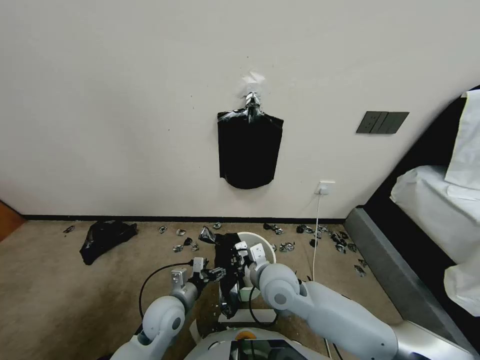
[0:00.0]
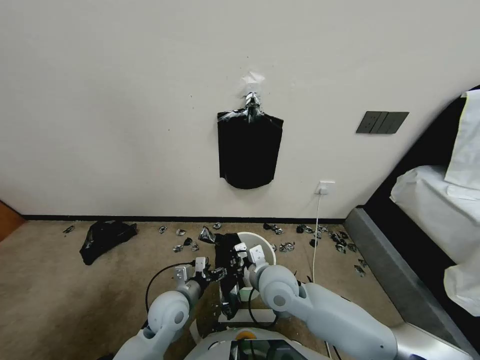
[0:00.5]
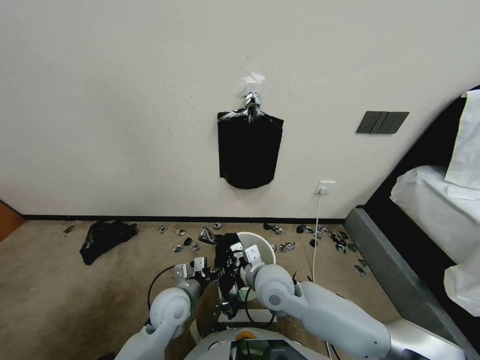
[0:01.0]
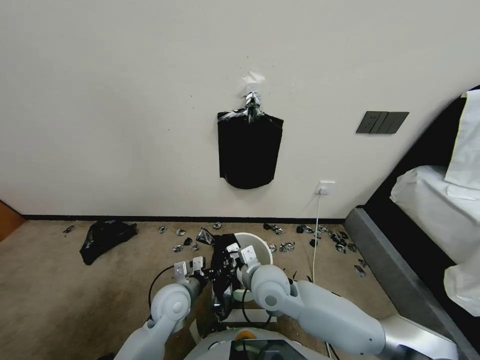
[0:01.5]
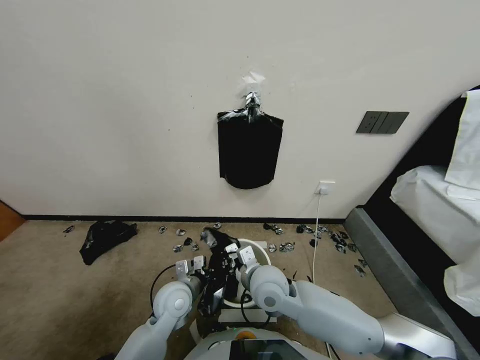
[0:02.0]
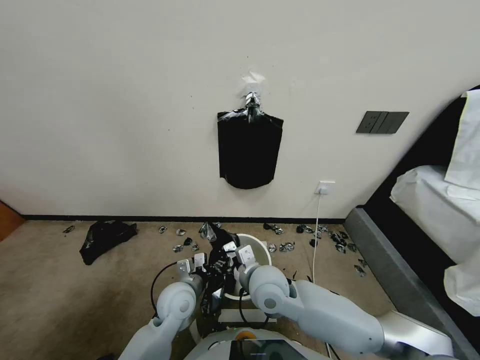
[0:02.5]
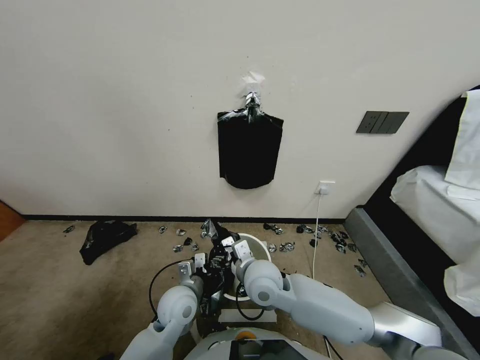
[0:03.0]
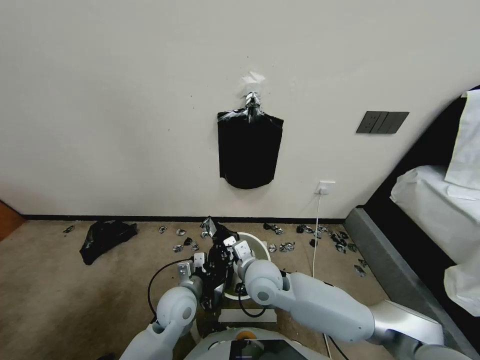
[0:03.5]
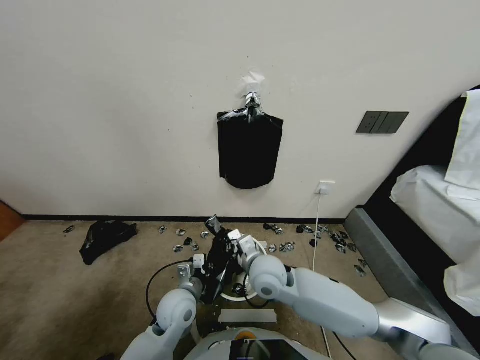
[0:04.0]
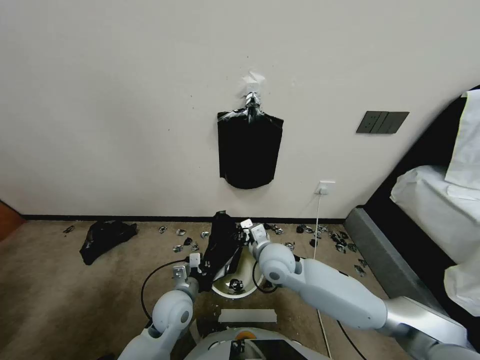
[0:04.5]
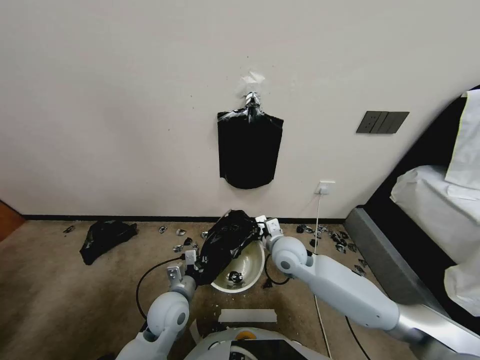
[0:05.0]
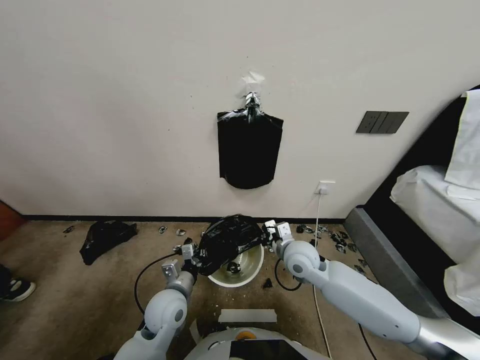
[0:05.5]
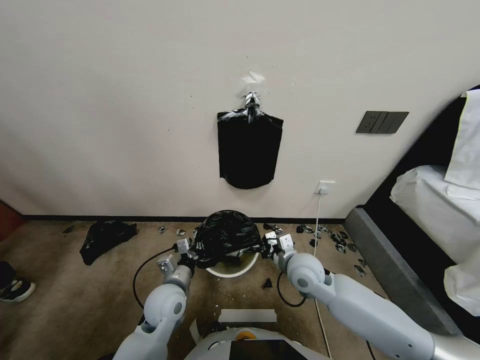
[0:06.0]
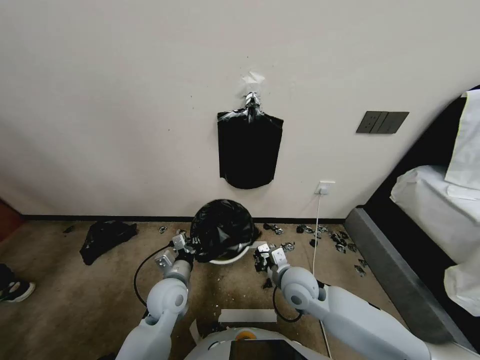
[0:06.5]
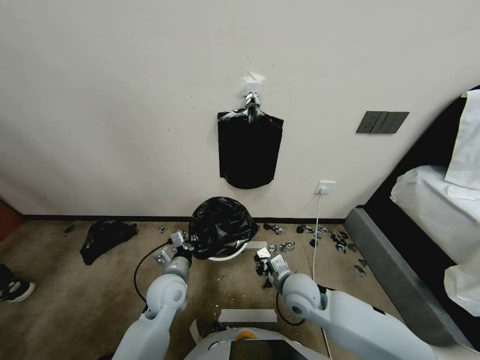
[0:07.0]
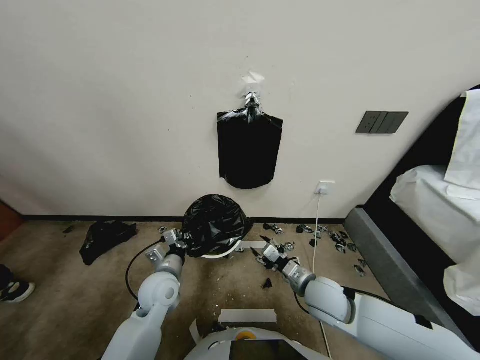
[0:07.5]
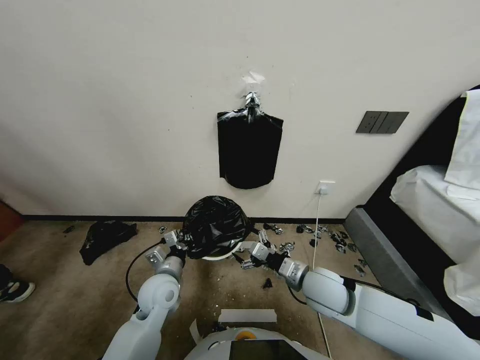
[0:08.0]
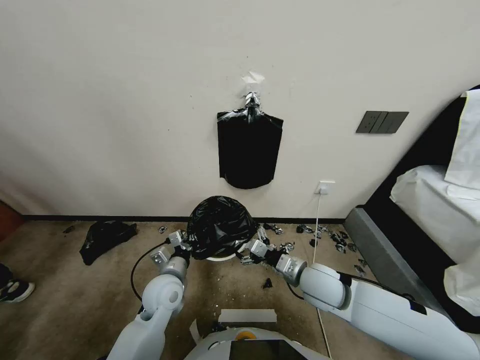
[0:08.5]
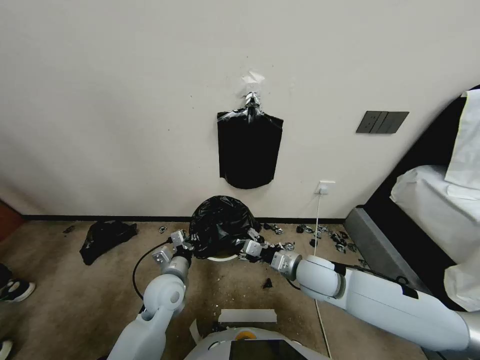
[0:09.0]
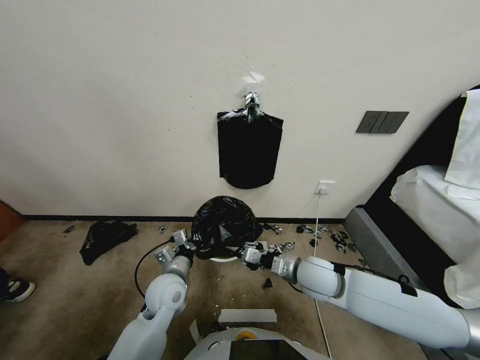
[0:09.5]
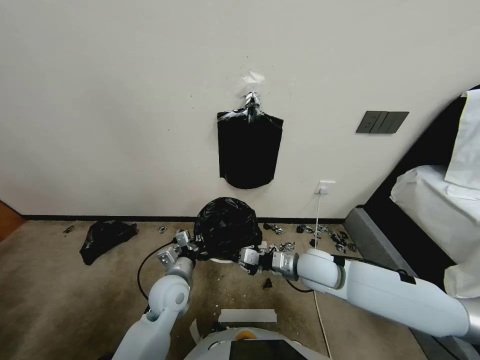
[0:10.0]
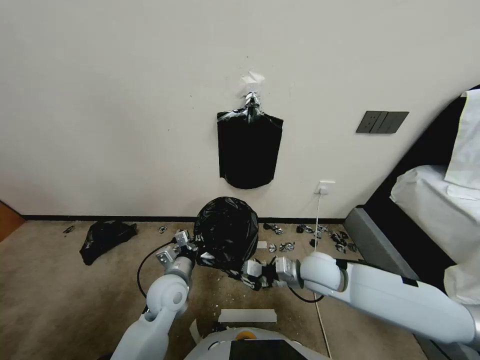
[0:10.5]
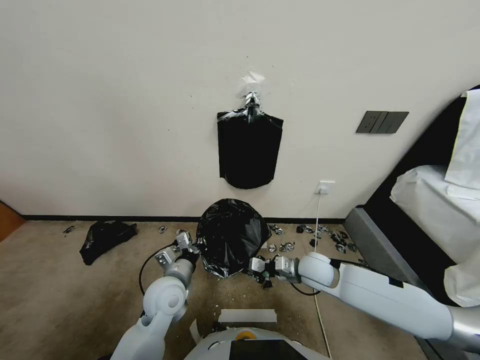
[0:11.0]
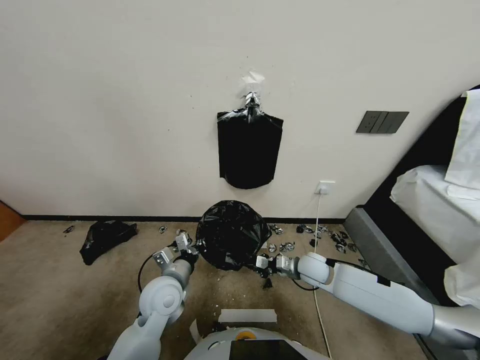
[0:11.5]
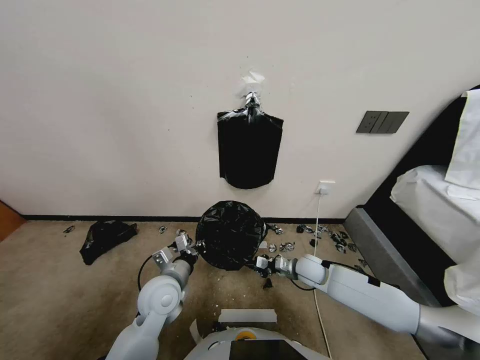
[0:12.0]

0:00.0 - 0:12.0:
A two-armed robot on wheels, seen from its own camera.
Task of the whole recording: Place a trash bag onto the trash bin.
0:00.0 - 0:02.0: The left gripper closes its fingers.
0:02.0 - 0:04.0: The right gripper opens, then closes once more.
0:04.0 - 0:06.0: The right gripper is displaced to the right by roughly 10 cm.
0:06.0 - 0:08.0: The right gripper opens.
0:08.0 - 0:10.0: The right gripper closes up.
0:10.0 - 0:12.0: The right gripper shifts approximately 15 cm downward.

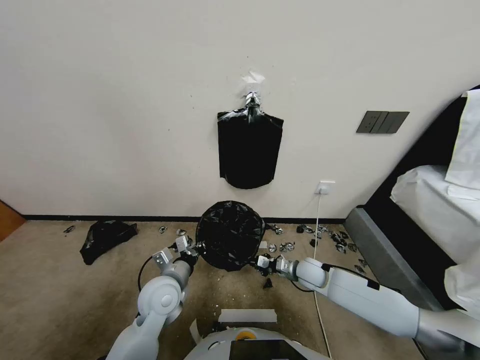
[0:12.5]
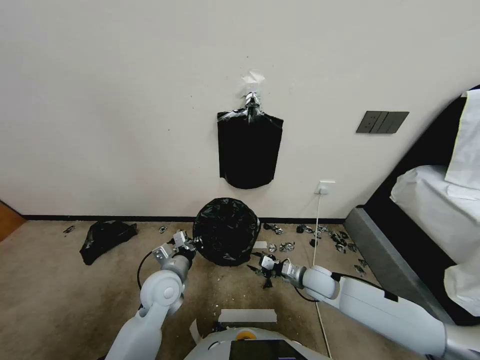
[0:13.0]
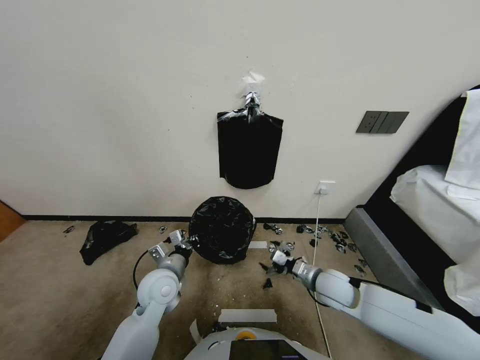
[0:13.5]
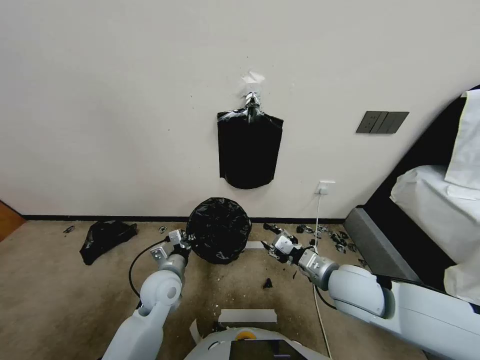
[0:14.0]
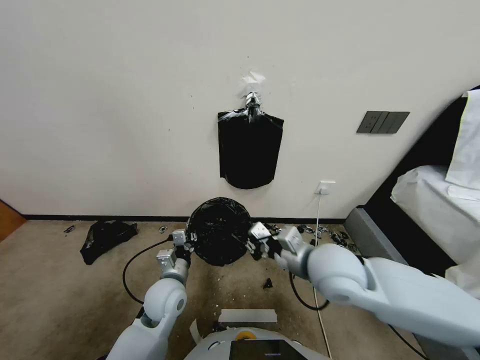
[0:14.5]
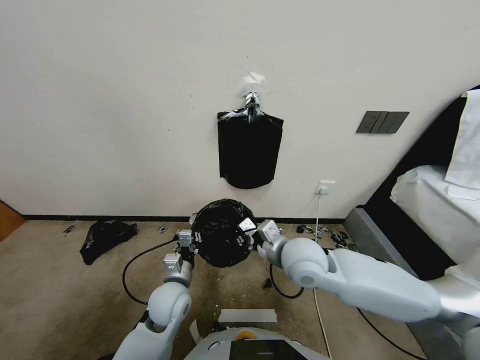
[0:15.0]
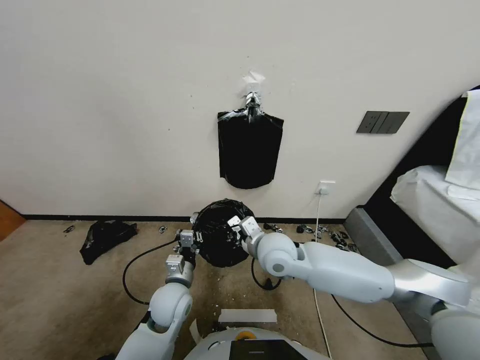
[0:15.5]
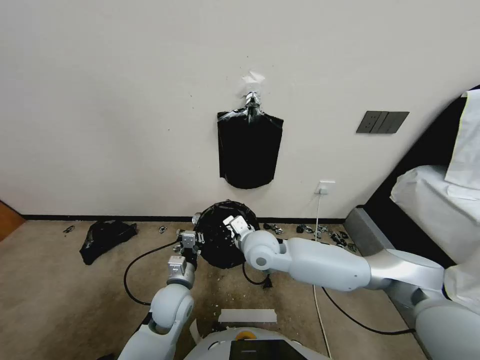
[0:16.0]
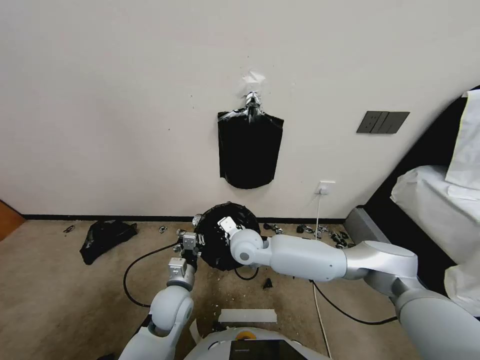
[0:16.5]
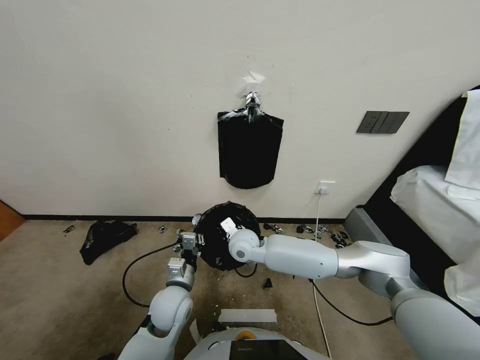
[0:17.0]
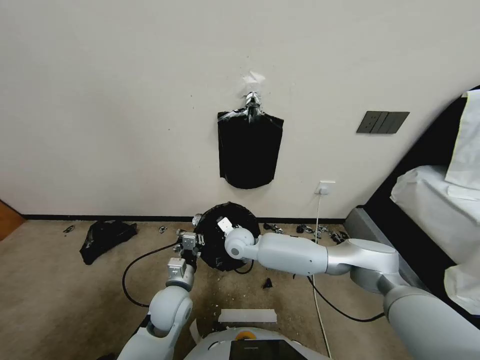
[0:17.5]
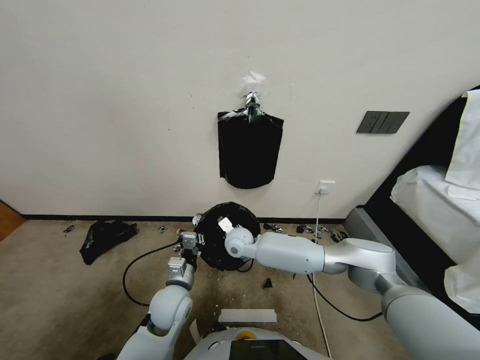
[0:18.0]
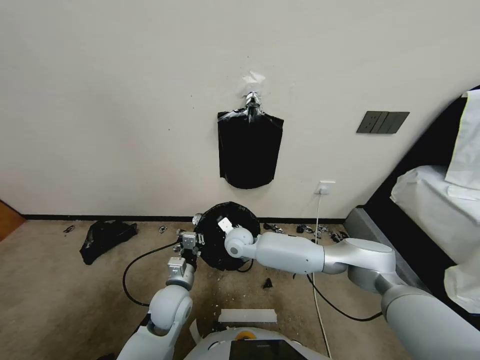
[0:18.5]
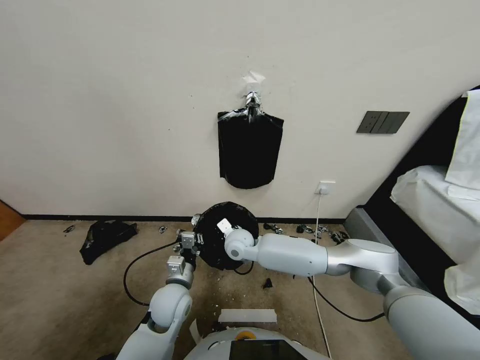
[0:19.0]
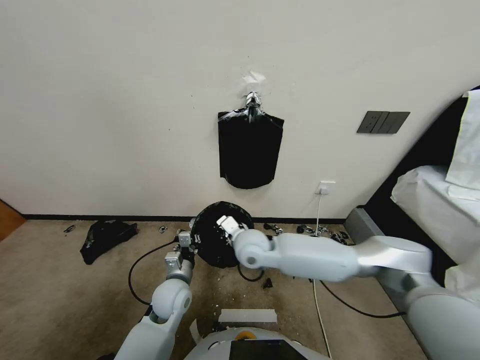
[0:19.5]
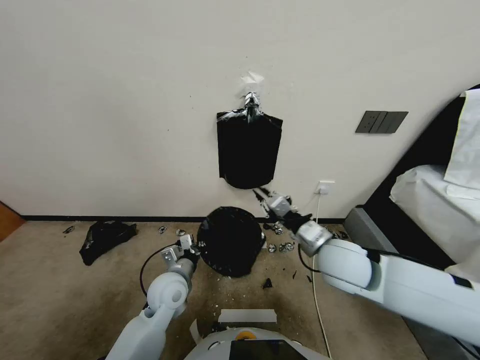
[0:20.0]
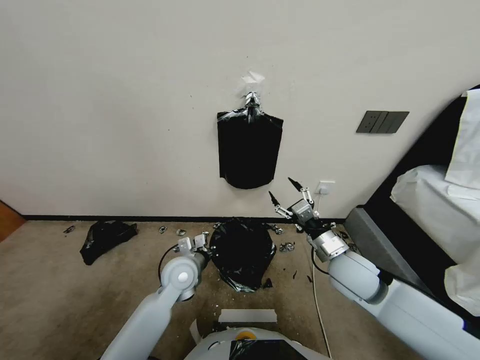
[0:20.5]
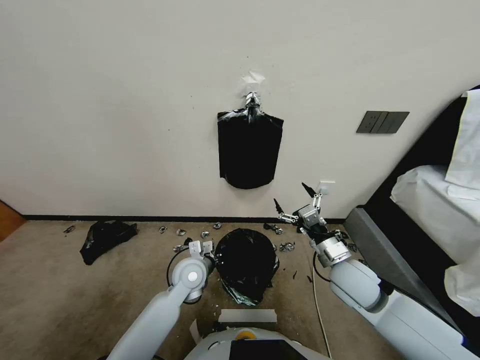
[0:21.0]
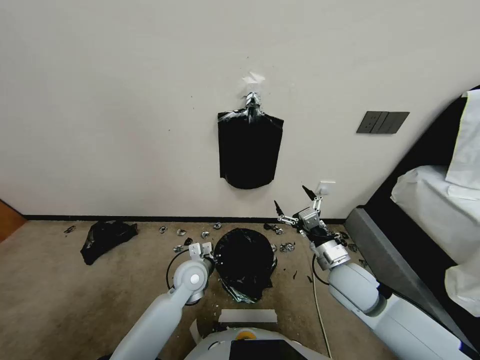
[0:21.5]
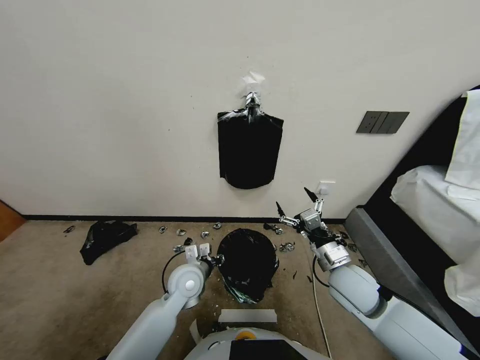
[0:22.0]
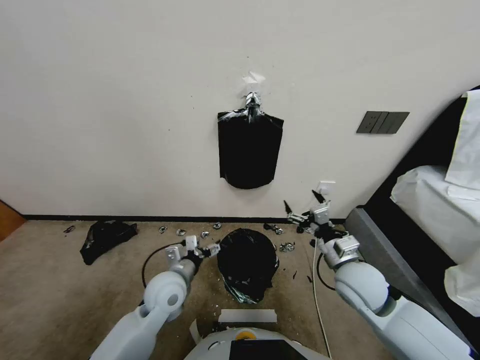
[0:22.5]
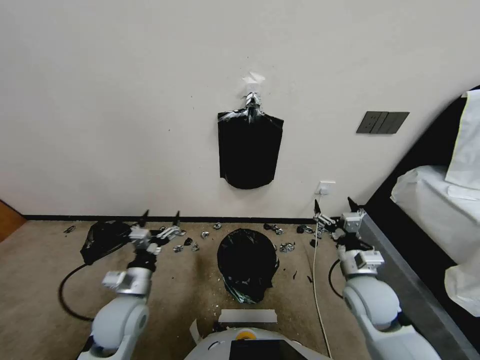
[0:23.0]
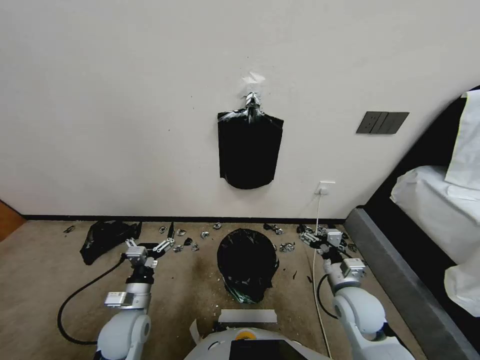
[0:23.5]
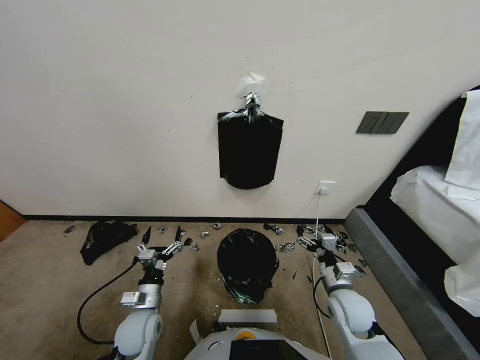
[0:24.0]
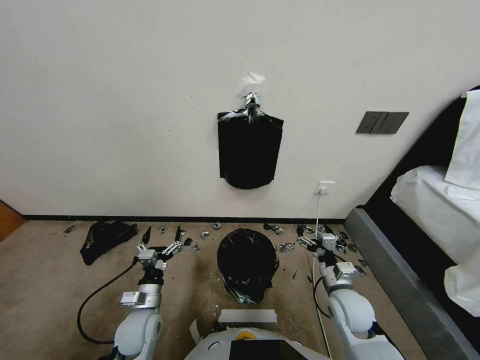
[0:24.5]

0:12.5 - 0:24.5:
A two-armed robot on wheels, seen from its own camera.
Task of the whole recording: Place a trash bag onto the trash bin.
0:12.5 - 0:14.5: The right gripper moves upward, roughly 25 cm, and opens and closes again.
0:14.5 - 0:16.5: The right gripper heads to the left, forward and downward, covering about 20 cm.
0:16.5 - 0:18.5: The right gripper goes roughly 5 cm downward.
0:18.5 - 0:20.5: The left gripper moves forward, some 5 cm. Meanwhile the right gripper moves to the right and backward, about 30 cm, and opens its fingers.
0:20.5 - 0:22.5: The left gripper is displaced backward by approximately 5 cm, and opens its fingers.
0:22.5 - 0:24.5: The left gripper shifts some 15 cm downward, to the left and backward, while the right gripper moves downward, approximately 10 cm.
